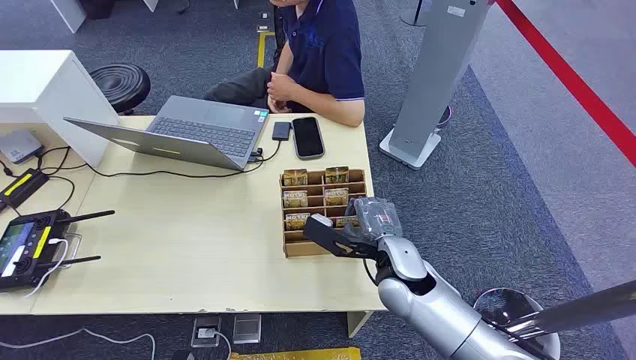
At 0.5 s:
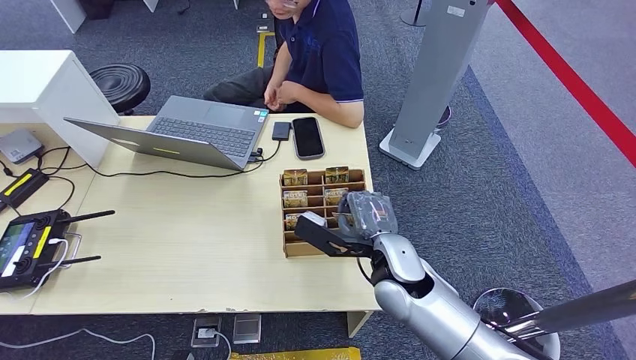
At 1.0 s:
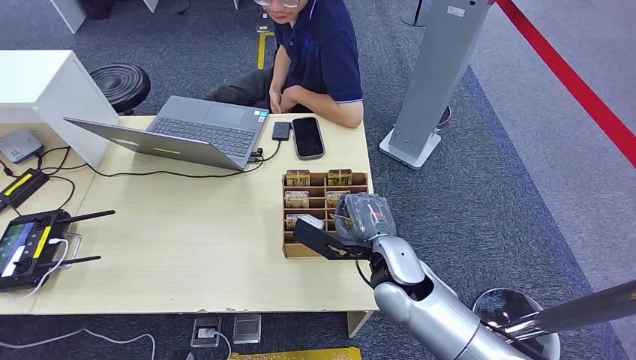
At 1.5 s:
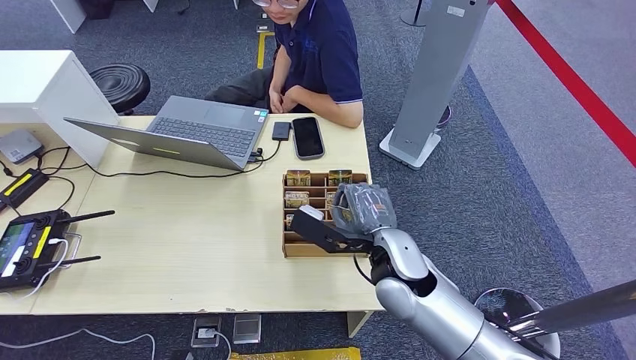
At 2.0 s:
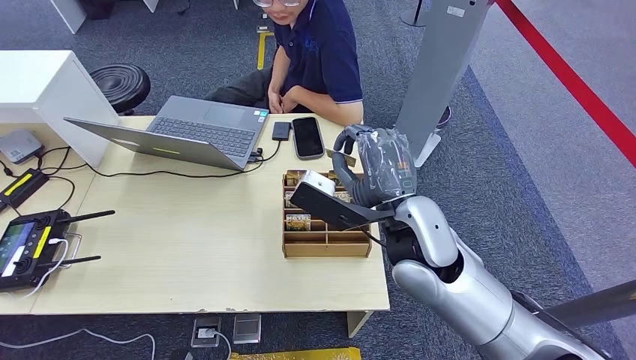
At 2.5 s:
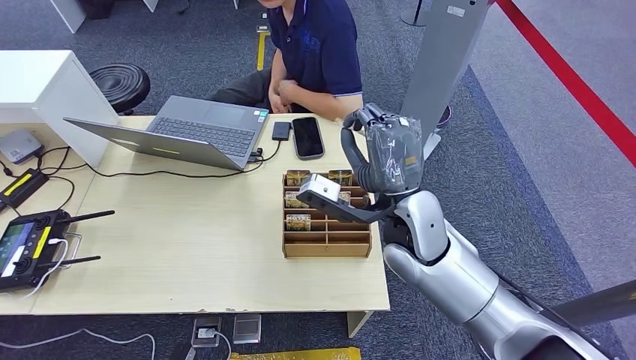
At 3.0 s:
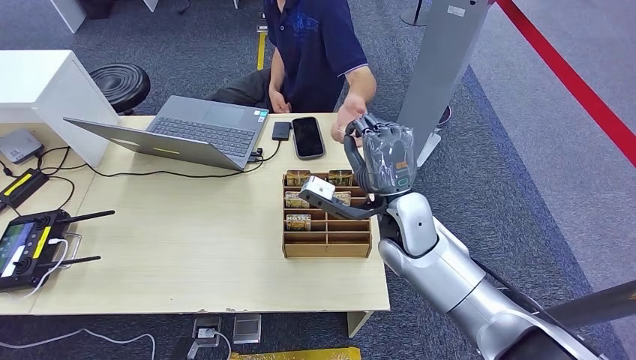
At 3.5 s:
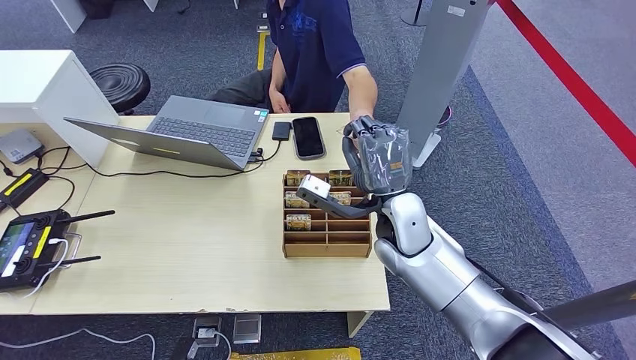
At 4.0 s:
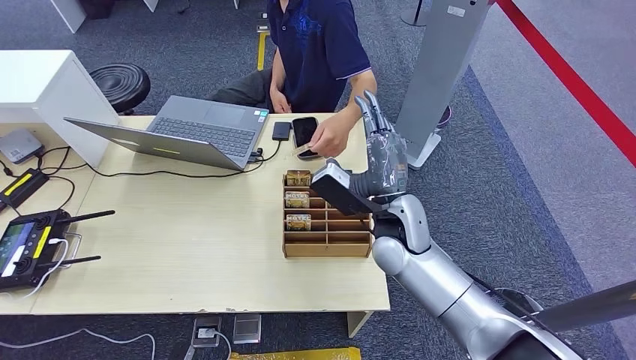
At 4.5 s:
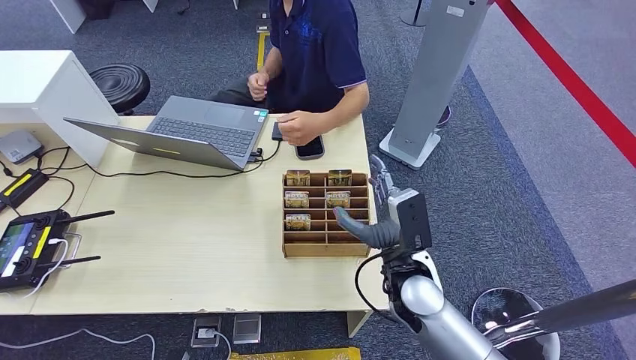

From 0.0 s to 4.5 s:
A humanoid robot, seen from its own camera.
Step, from 0.0 s to 1.5 s: Pick up the room card from the card holder.
Step, from 2.5 s to 4.5 s: Hand the room card to the target.
From 2.0 s to 4.5 s: The right hand heads downward, covering some 15 cm.
